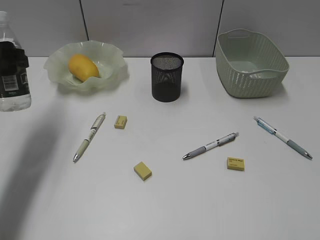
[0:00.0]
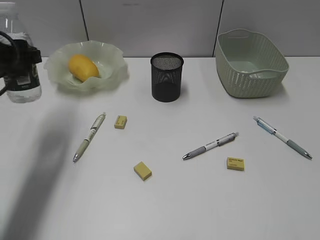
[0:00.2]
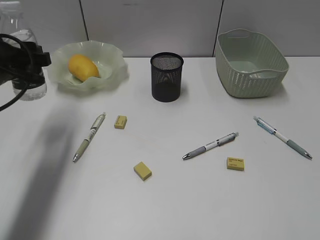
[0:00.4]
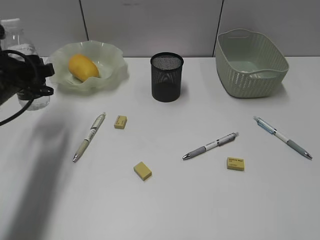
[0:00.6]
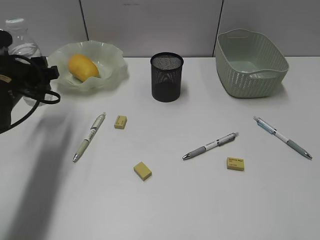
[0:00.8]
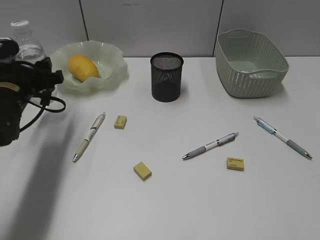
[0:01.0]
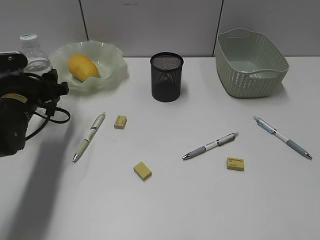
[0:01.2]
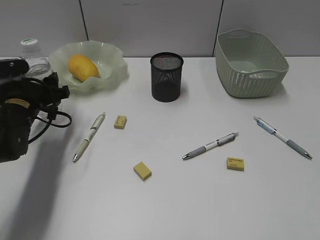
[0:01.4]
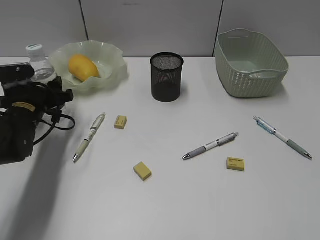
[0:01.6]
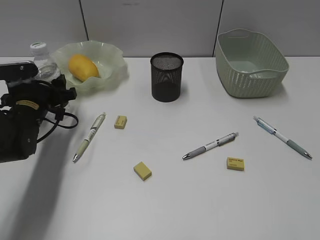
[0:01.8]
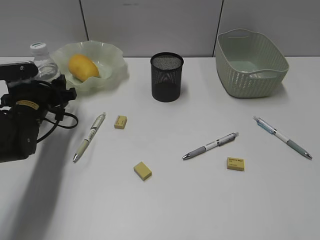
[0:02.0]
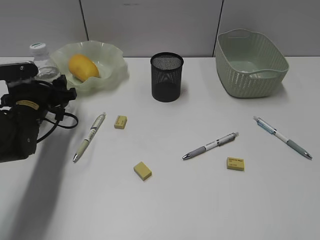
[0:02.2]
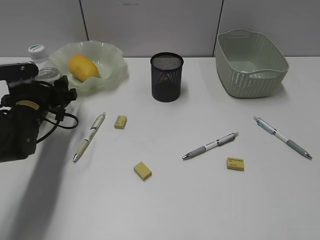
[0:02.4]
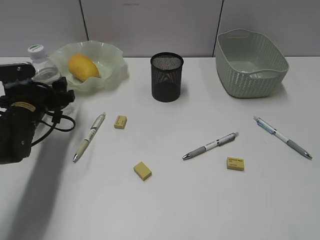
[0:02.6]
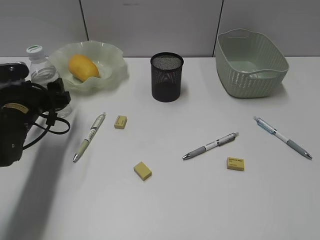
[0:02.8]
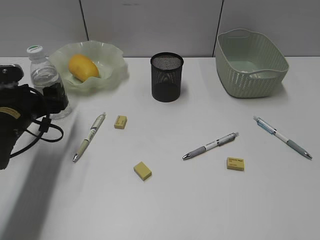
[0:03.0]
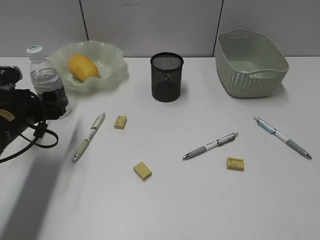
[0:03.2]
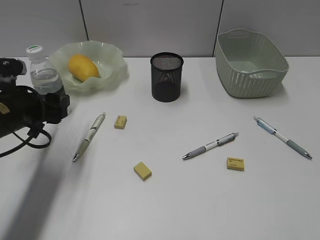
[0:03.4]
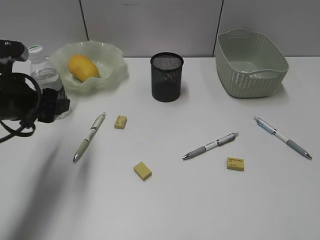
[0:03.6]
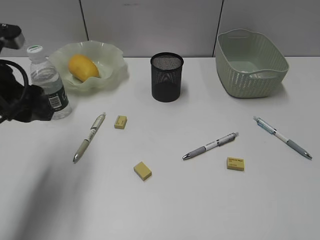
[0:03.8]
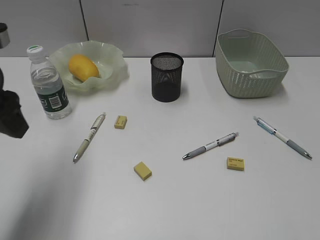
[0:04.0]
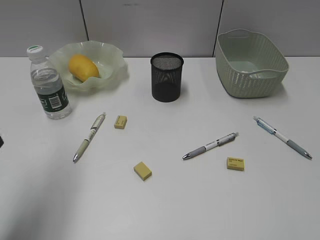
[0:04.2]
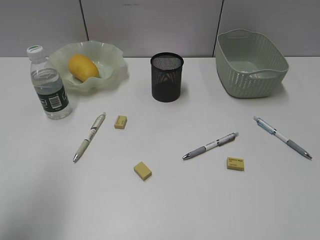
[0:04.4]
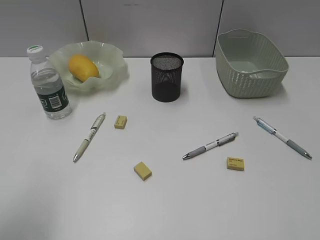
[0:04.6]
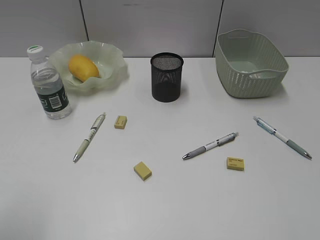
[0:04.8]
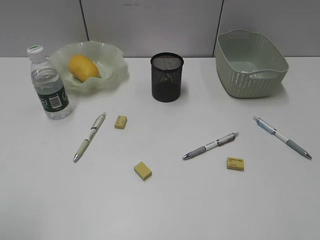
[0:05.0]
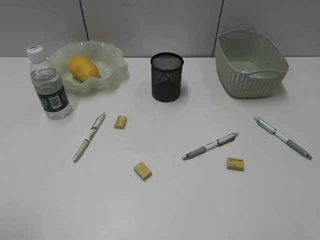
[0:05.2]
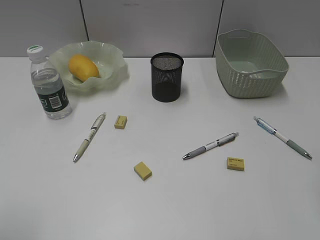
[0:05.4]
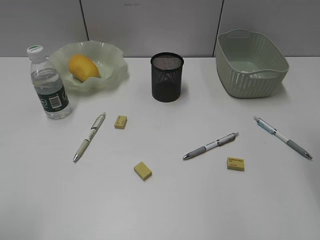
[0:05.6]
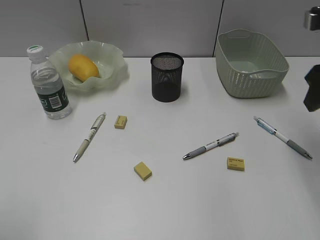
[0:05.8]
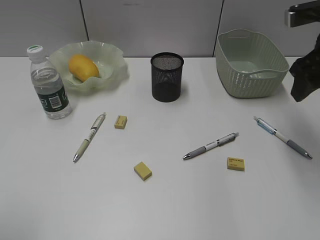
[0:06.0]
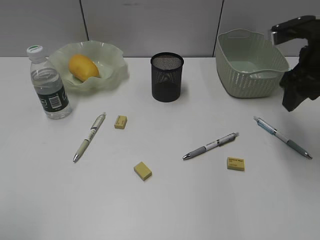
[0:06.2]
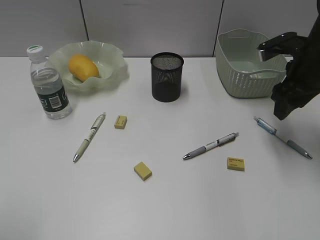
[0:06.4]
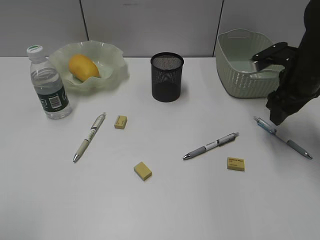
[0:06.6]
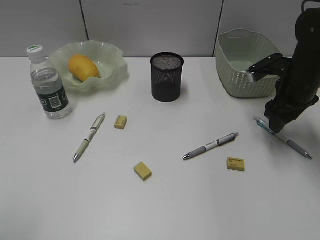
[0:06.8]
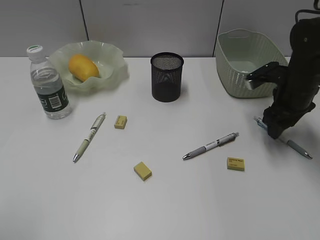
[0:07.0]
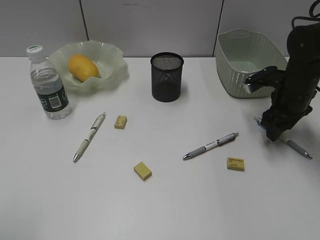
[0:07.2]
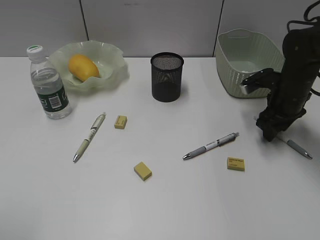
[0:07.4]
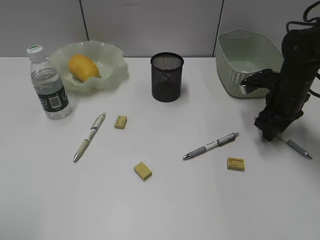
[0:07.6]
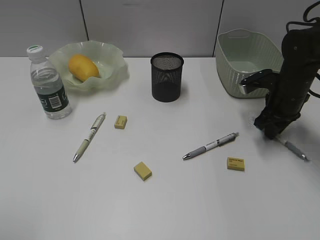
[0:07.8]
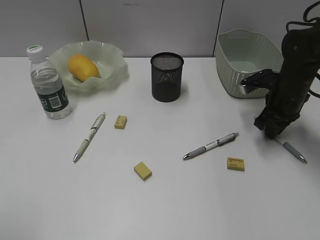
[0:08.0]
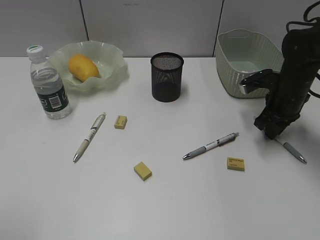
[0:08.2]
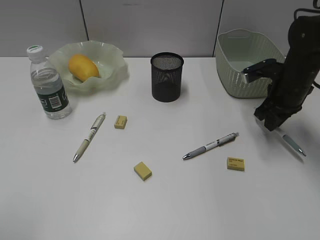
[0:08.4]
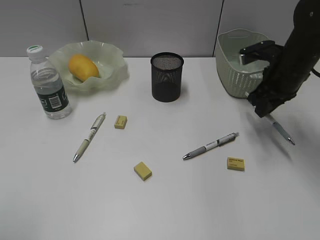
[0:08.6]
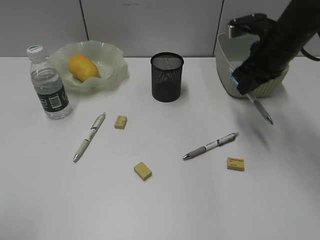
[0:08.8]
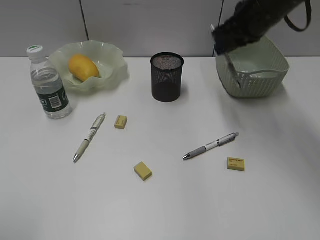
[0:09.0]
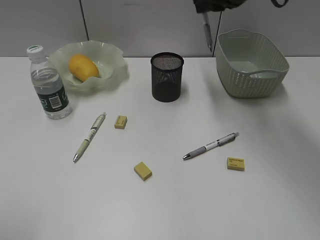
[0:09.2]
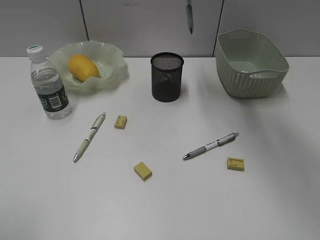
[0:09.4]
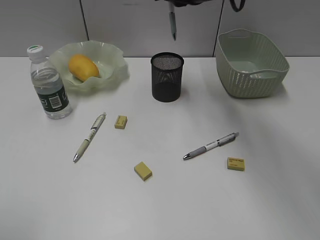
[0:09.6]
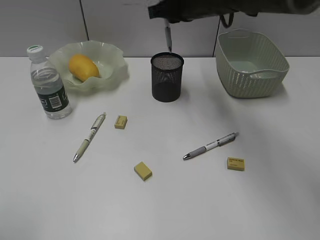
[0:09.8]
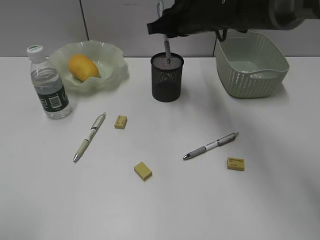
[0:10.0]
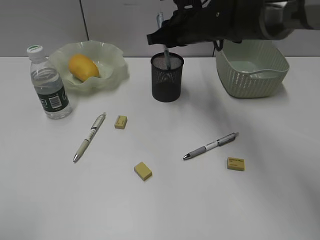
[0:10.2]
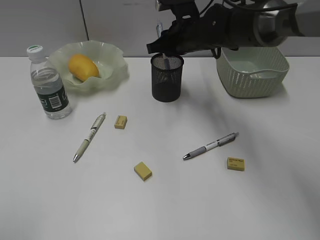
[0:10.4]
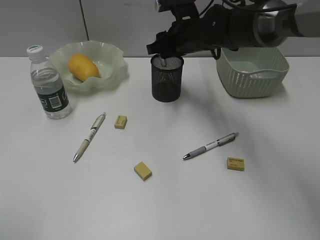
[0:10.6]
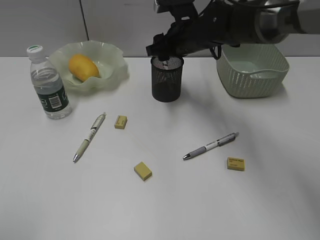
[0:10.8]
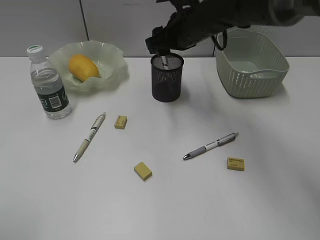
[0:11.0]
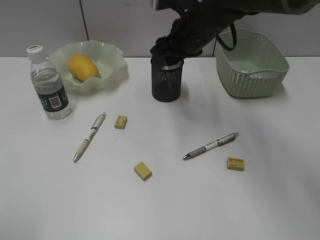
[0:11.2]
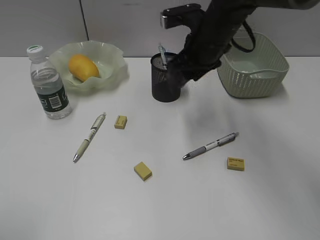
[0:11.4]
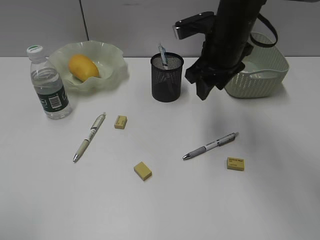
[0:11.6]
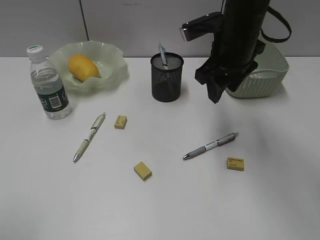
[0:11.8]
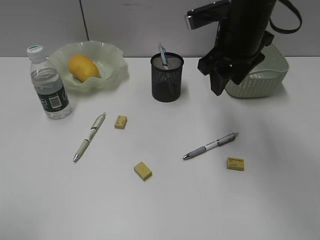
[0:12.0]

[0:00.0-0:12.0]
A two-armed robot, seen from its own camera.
Step, 0.0 to 3.0 s: Stand the bottle with left gripper.
Step, 3.2 to 8.0 s: Grasp the blue pen with right gripper.
Step, 8.2 to 10.8 s: Place the blue pen in pen holder with right gripper.
0.0 to 1.6 s: The left gripper shifts approximately 15 cm downward.
1.6 to 3.0 s: The grippers make only small movements.
3.0 to 4.4 s: The left gripper goes about 25 cm upward and backward.
4.4 to 6.0 s: The right gripper moves forward, roughly 30 cm. The left gripper moves backward, about 10 cm.
6.0 to 7.6 s: The right gripper heads downward and forward, covering some 15 cm.
7.6 to 9.0 s: The right gripper travels upward and to the left by roughly 20 cm, and closes up.
9.0 to 10.4 s: The right gripper moves to the left and downward, about 15 cm.
10.4 to 12.0 s: The right gripper moves backward, upward and to the right, approximately 15 cm, and opens.

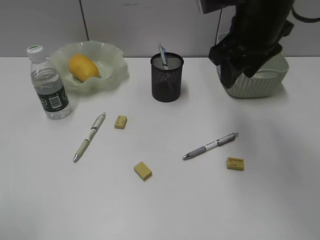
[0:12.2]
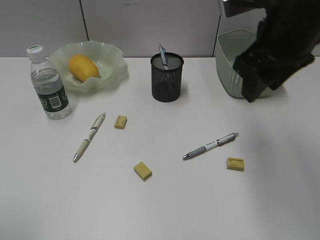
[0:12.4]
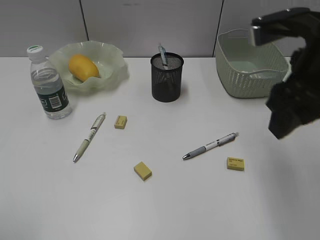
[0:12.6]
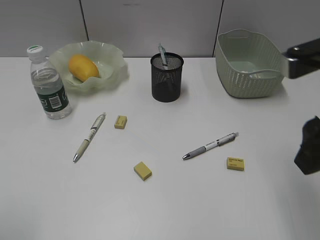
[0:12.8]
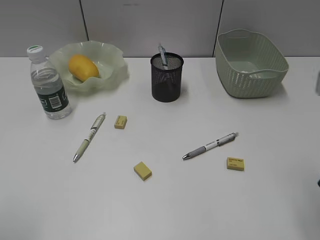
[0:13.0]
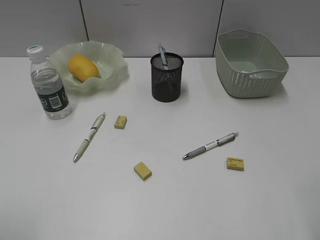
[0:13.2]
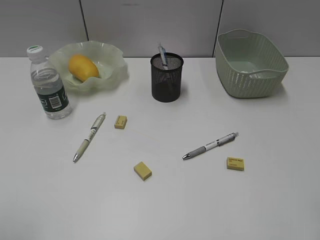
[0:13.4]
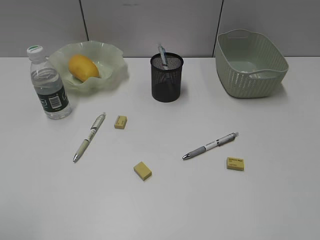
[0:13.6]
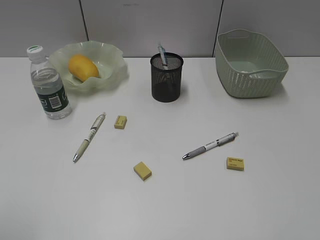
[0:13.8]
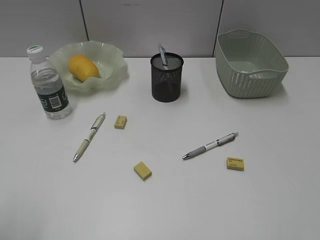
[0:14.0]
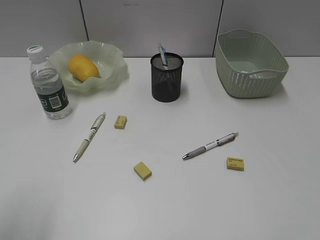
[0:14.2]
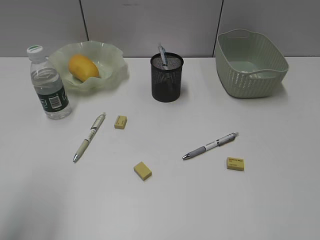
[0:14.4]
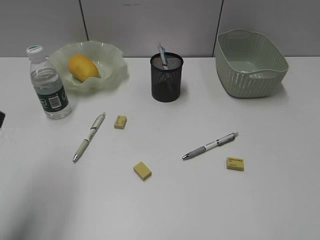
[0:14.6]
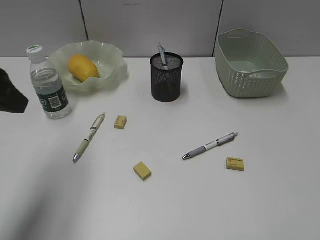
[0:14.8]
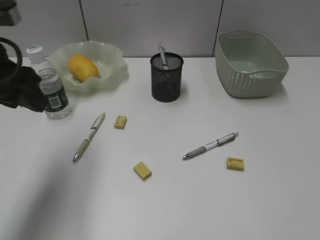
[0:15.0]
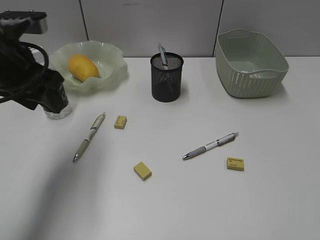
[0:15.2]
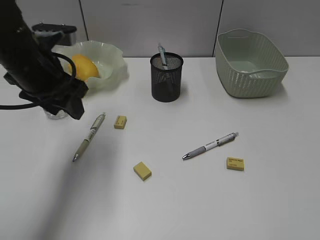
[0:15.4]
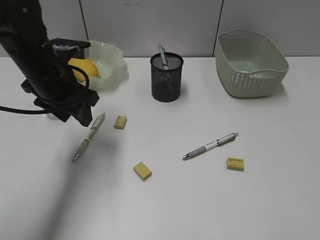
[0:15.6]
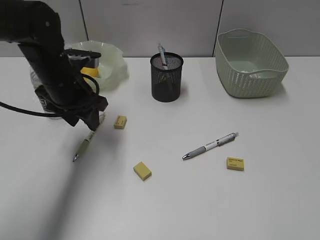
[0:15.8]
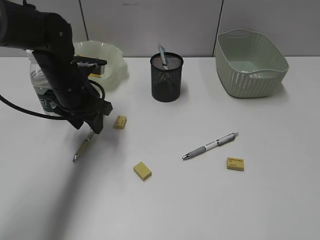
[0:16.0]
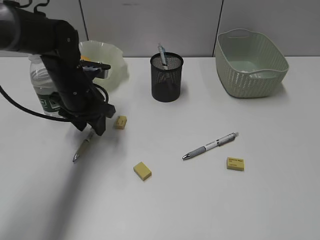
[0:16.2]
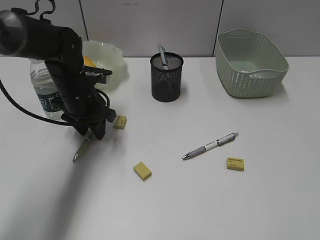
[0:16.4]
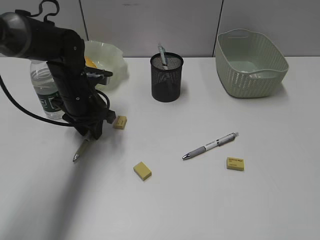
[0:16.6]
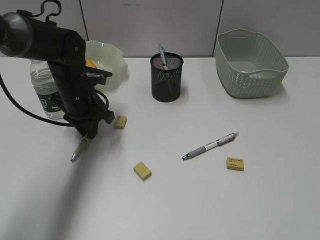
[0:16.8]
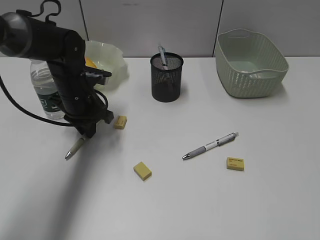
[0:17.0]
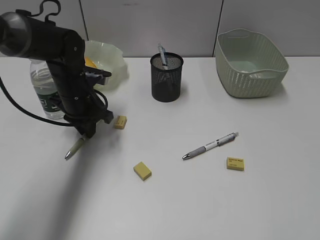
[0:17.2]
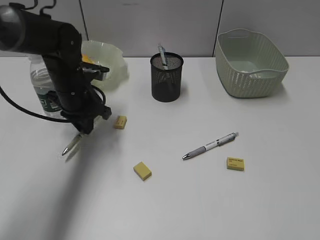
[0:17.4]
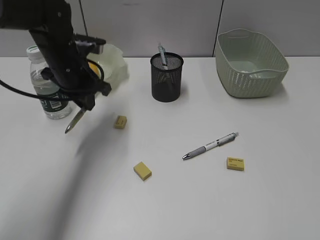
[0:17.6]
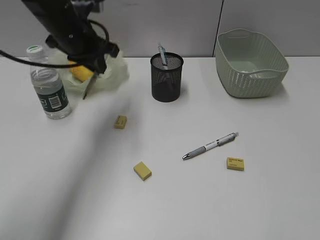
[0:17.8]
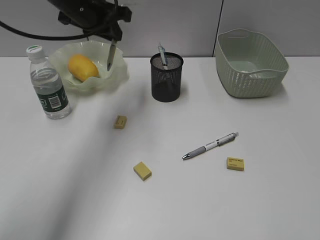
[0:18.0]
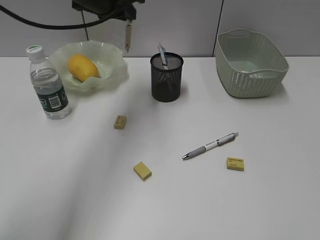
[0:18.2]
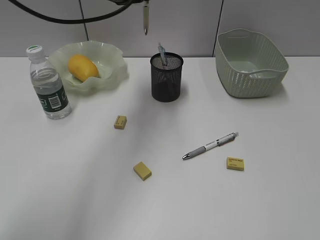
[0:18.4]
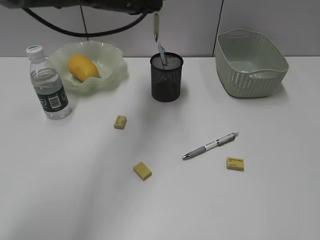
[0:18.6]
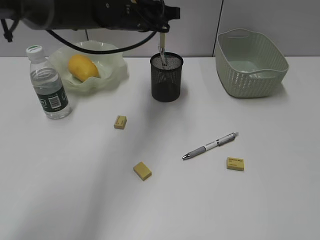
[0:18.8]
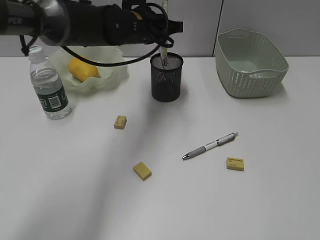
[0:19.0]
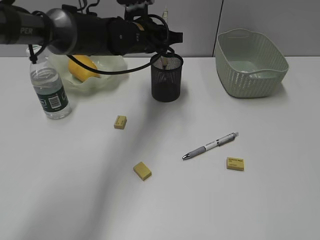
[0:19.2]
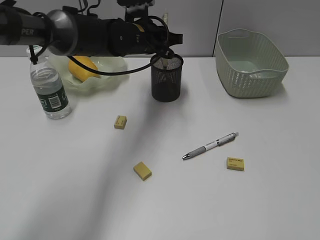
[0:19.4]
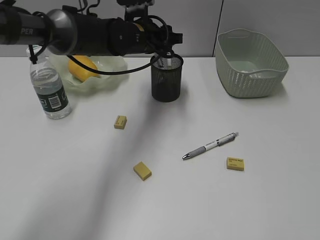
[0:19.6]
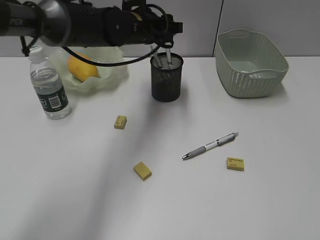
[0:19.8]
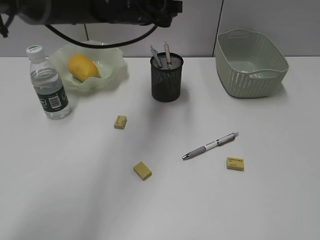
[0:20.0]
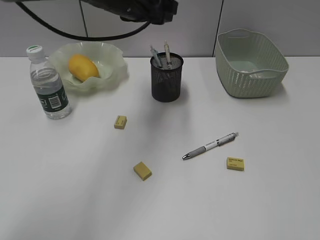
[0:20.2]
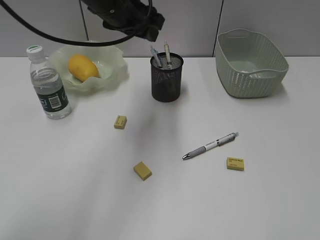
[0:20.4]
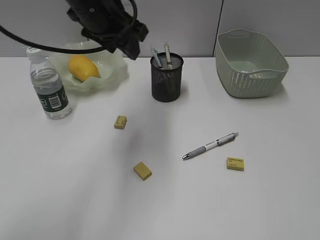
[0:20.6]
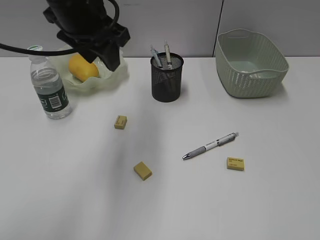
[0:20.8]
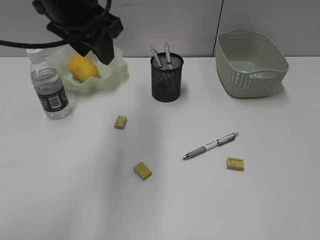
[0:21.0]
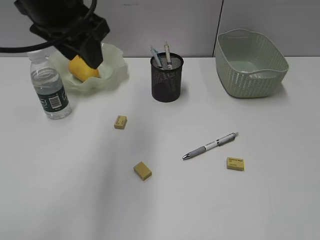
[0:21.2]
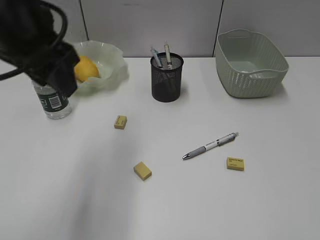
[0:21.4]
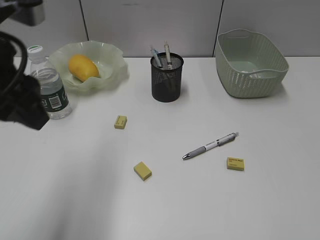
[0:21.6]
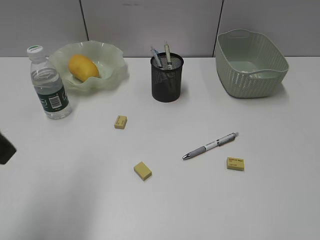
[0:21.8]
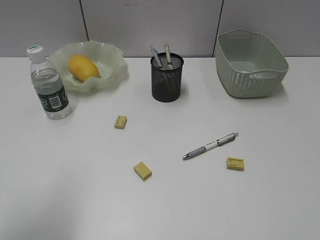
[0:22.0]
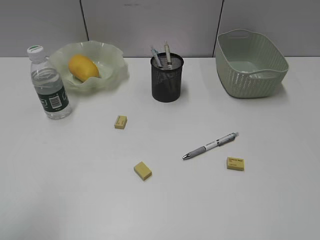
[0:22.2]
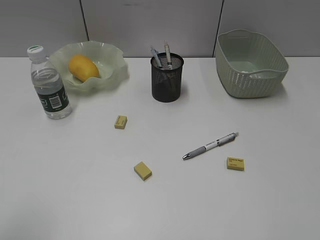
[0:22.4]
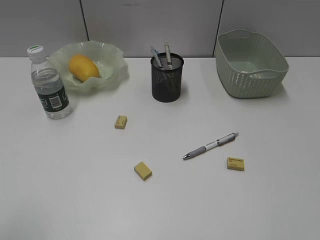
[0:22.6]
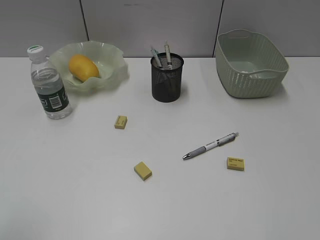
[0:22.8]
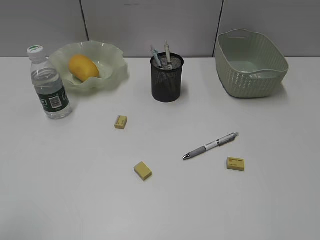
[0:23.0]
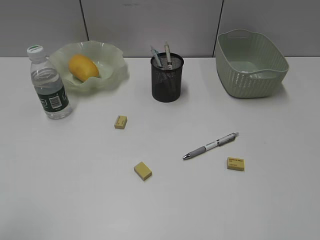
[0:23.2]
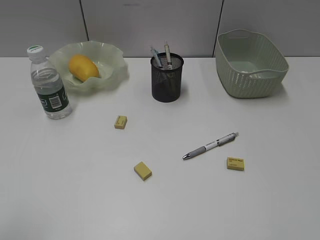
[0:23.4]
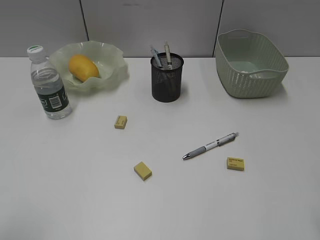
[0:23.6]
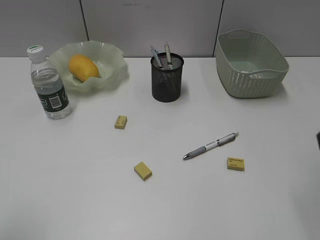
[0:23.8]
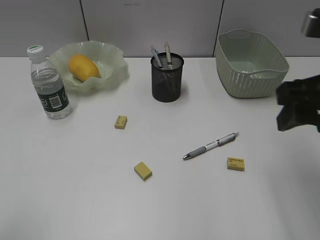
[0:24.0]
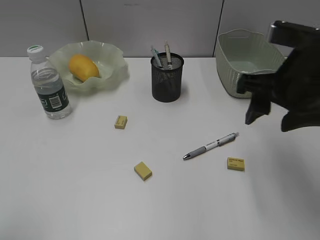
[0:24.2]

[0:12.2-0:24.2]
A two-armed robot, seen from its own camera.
Step, 12.2 to 17.2 s: Grasp the yellow pen with left gripper.
Step, 17.4 to 19.8 s: Place the yellow pen in pen holder with left gripper.
12.2 to 13.8 s: The right gripper moves backward and to the right, approximately 30 cm.
13.8 to 15.2 s: The left gripper moves forward, about 25 cm.
15.2 to 16.6 s: The left gripper heads downward and forward, covering some 15 cm.
16.6 to 18.2 s: The left gripper heads upward, covering approximately 20 cm.
18.2 to 19.8 s: The left gripper heads downward and to the right, covering some 10 cm, and opens up.
19.8 to 21.2 s: The left gripper travels backward, upward and to the left by approximately 20 cm.
21.2 to 22.6 s: The left gripper heads backward and to the left, covering approximately 30 cm.
22.6 to 24.2 s: The right gripper heads forward and to the left, covering roughly 25 cm.
